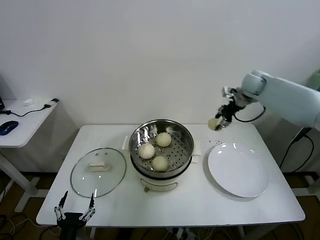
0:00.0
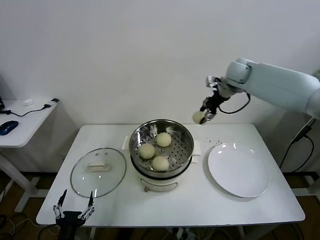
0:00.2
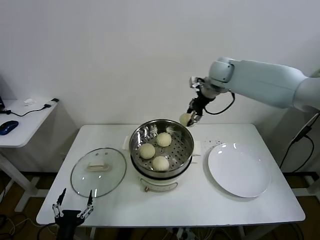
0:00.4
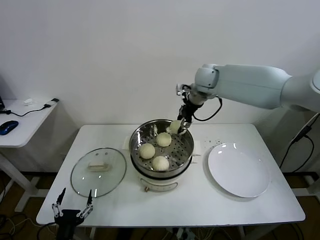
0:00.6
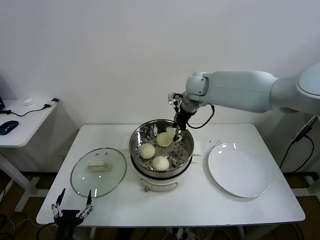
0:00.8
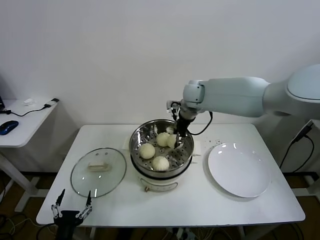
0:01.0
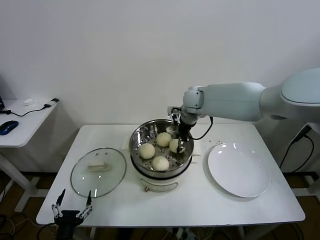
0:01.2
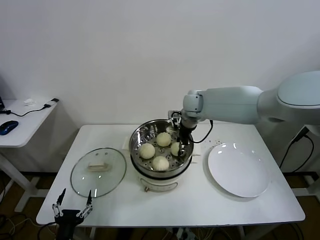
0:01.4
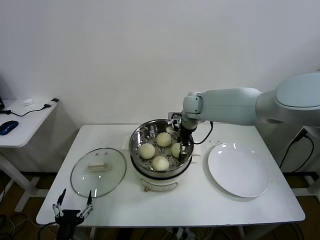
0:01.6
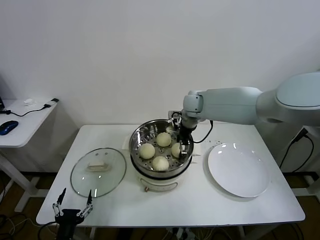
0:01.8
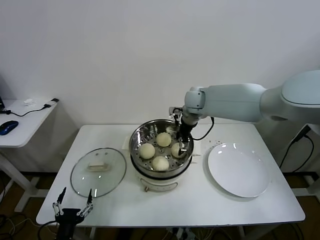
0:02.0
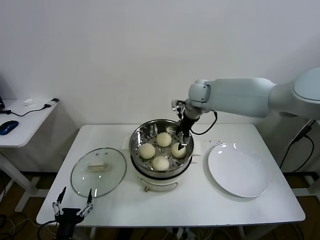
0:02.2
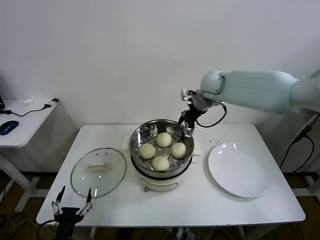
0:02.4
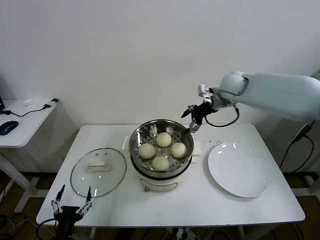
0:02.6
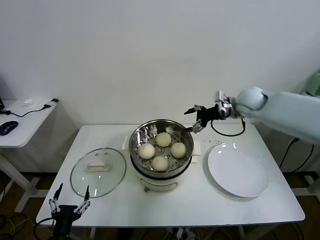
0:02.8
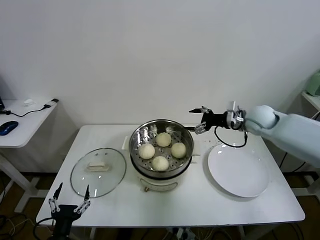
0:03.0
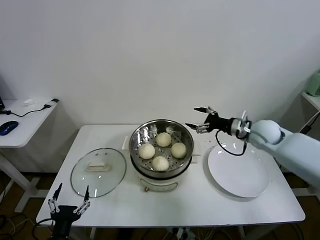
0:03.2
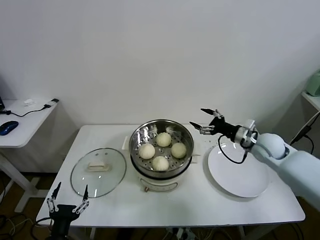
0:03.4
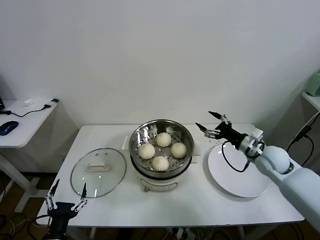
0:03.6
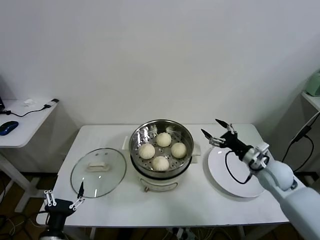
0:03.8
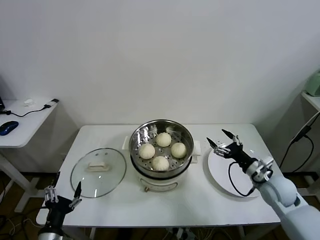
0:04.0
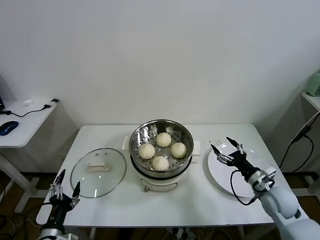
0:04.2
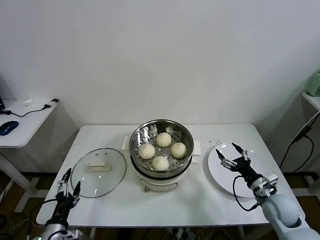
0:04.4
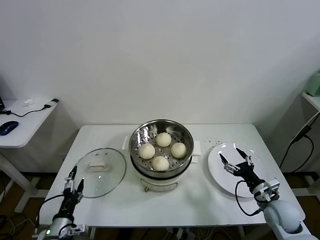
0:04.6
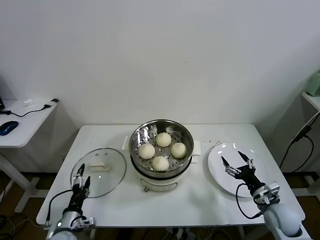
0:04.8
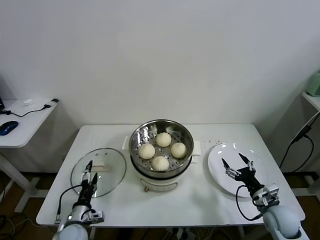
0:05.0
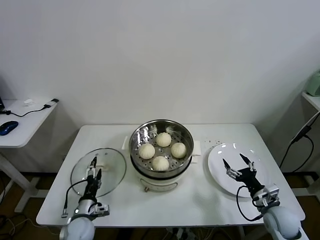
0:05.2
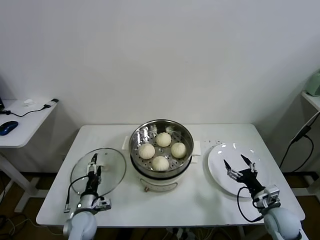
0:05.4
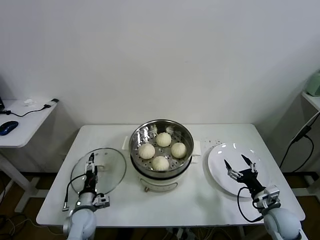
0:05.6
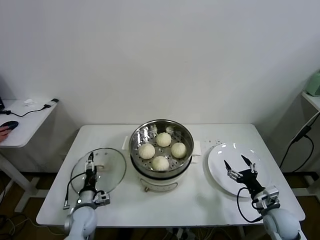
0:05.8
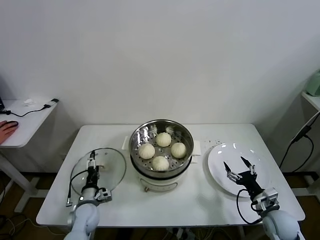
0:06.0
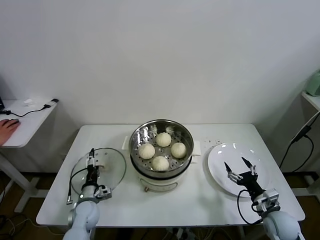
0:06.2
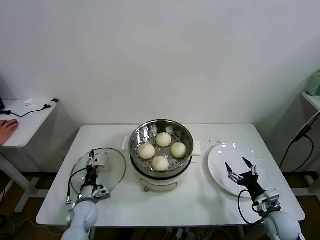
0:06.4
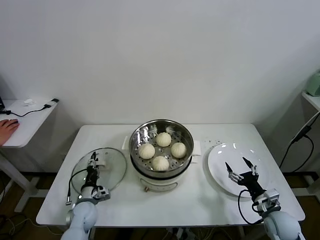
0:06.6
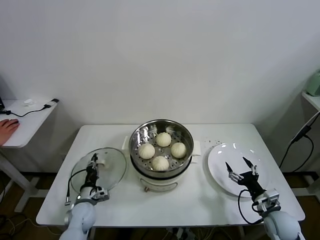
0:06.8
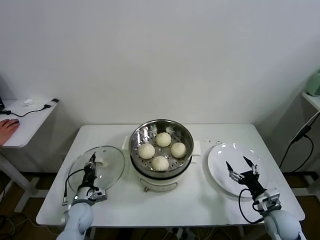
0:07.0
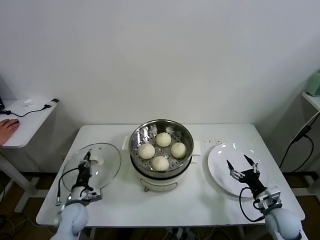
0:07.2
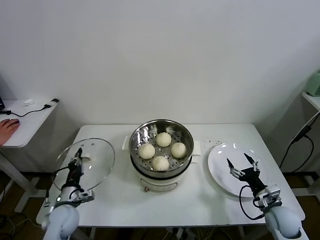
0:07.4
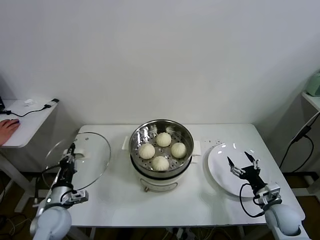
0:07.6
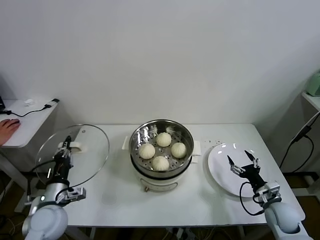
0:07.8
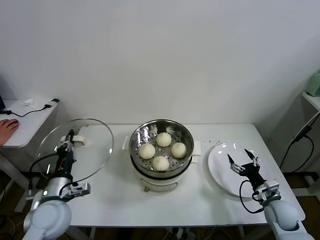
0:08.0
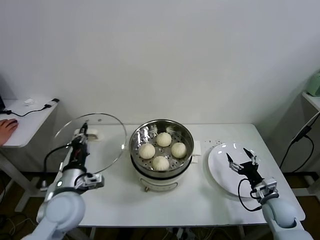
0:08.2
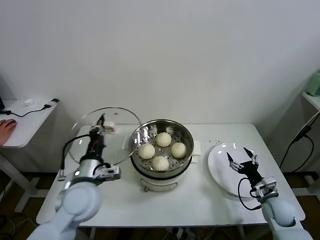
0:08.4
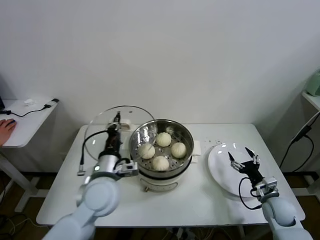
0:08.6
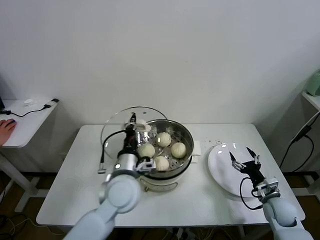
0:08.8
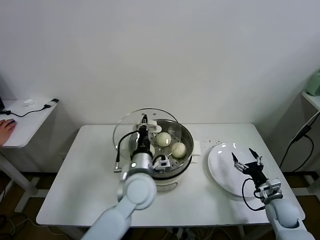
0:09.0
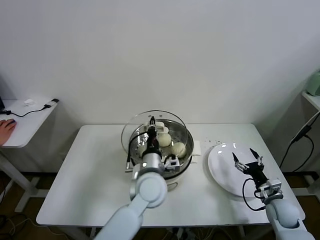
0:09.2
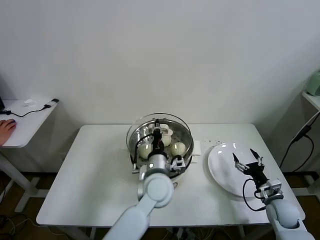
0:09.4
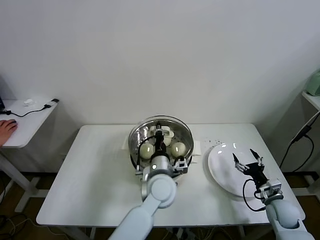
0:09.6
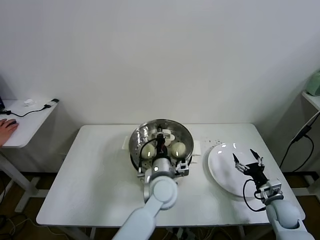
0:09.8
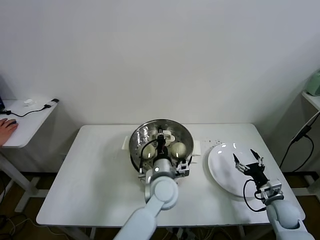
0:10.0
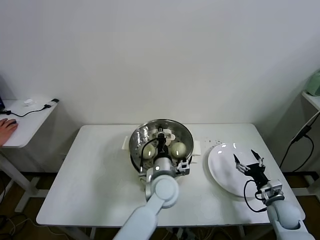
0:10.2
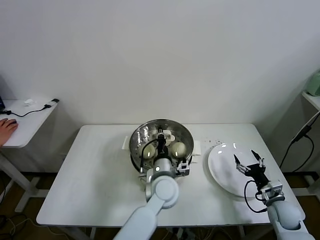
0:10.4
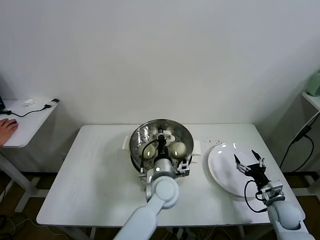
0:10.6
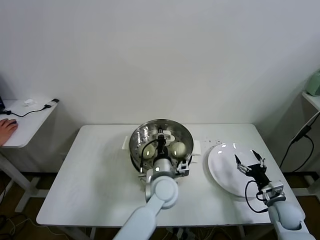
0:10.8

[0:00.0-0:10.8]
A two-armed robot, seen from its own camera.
Task of the whole recording: take steamed baozi put them in steamer.
Step, 0:00.0 to 0:02.0: Place the baozi on the steamer with right gripper.
Step, 0:02.2 to 0:06.8: Grasp the pot lid with left gripper.
0:00.0 to 0:01.6: The right gripper shifts about 20 cm to the left, and opens.
0:01.6 to 0:03.0: The right gripper moves to the right, some 20 cm, and opens.
0:03.0 to 0:04.6: The right gripper moves backward and downward, roughly 30 cm; the left gripper heads forward, covering roughly 5 cm.
0:04.6 to 0:06.2: The left gripper goes some 15 cm forward and downward.
0:06.2 to 0:07.8: The left gripper moves upward and backward, some 15 cm, and closes its fingers.
0:07.8 to 0:09.2: The left gripper shifts approximately 30 cm to the right.
0:09.2 to 0:10.8: The left gripper is displaced downward by about 5 cm.

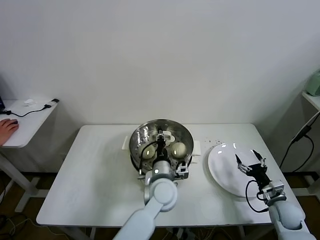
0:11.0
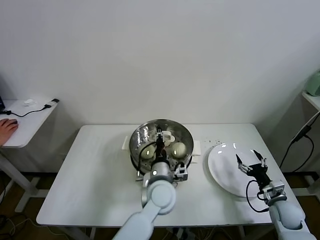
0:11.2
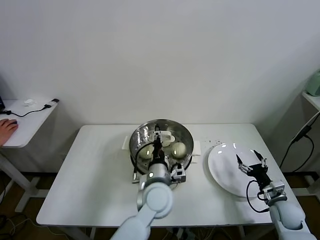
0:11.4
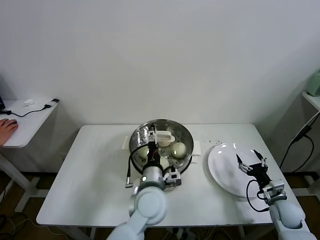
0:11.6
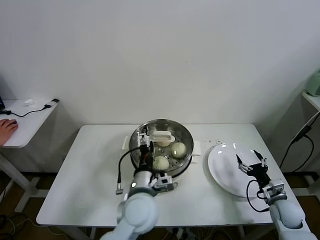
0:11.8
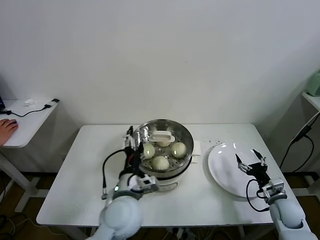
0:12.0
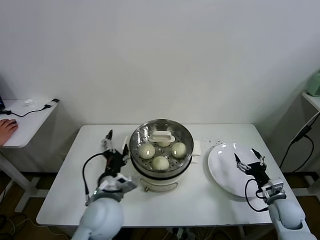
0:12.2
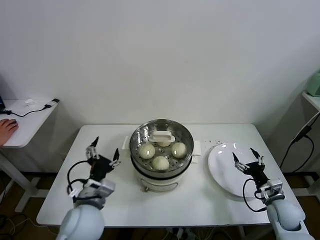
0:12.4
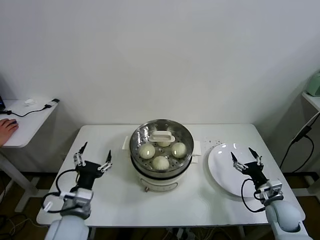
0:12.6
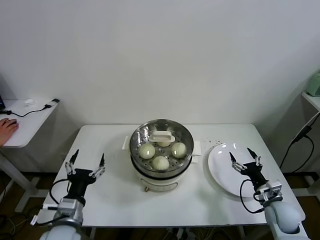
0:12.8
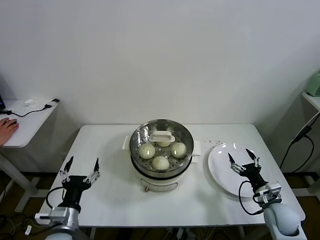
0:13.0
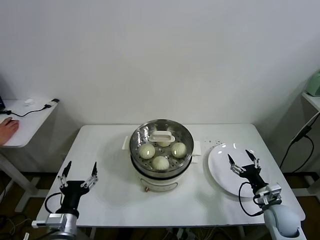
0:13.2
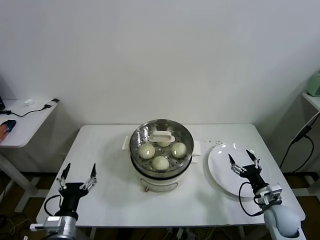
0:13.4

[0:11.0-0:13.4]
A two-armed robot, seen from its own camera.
Task of the whole recording: take steamed baozi put them in steamer.
0:11.0 to 0:12.2: The left gripper moves to the left, backward and upward, some 15 cm, and opens up.
0:12.2 to 0:13.4: The left gripper is displaced to the left, backward and downward by about 20 cm.

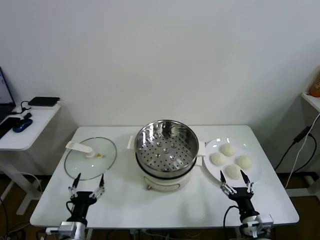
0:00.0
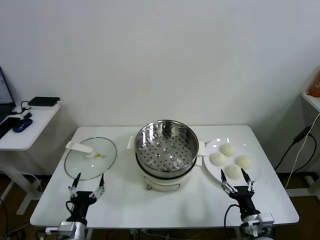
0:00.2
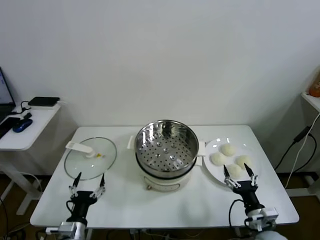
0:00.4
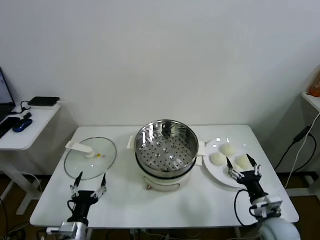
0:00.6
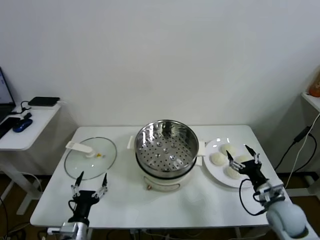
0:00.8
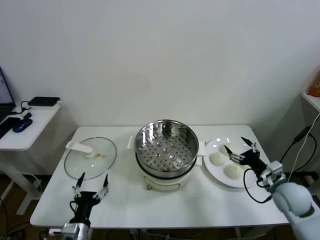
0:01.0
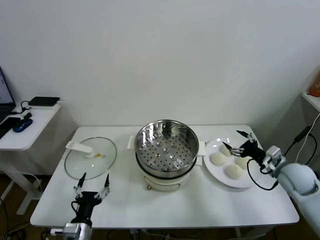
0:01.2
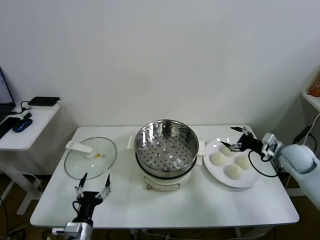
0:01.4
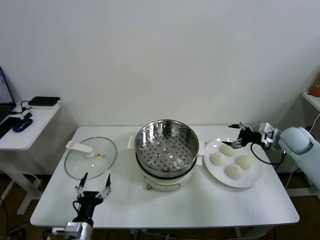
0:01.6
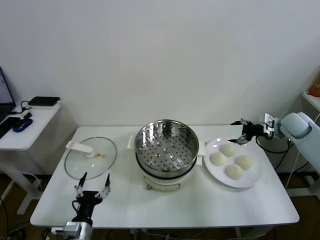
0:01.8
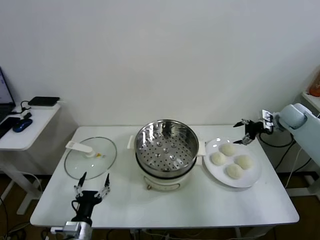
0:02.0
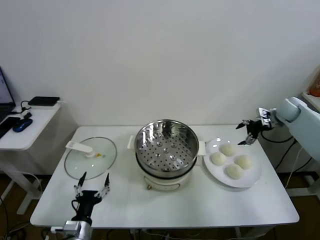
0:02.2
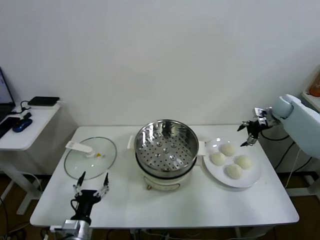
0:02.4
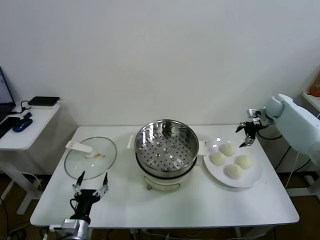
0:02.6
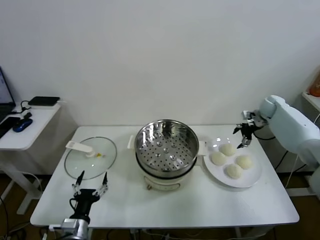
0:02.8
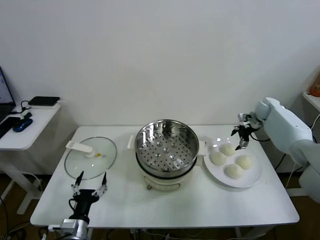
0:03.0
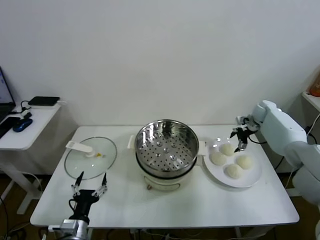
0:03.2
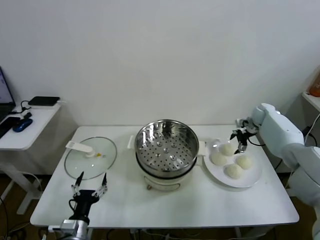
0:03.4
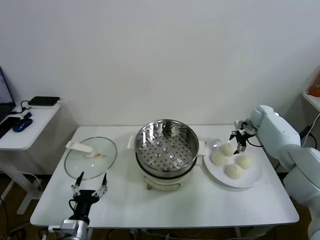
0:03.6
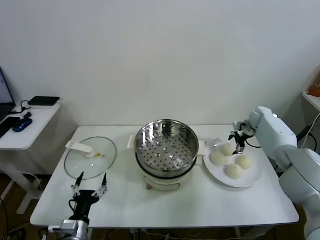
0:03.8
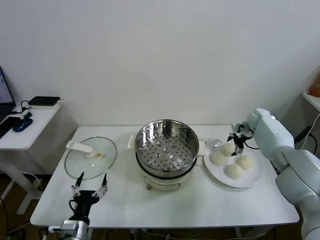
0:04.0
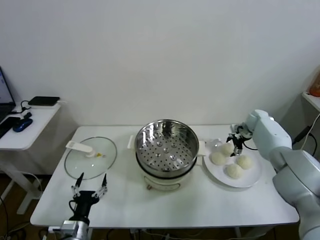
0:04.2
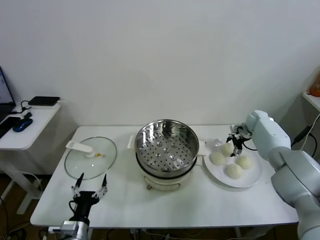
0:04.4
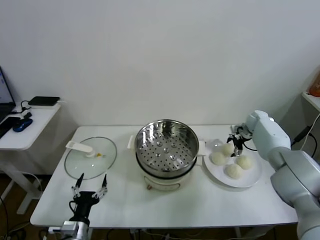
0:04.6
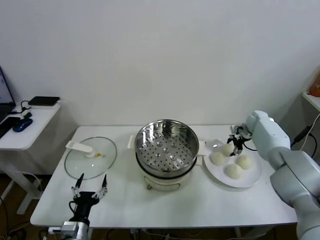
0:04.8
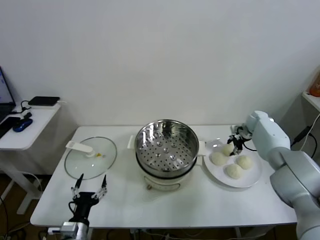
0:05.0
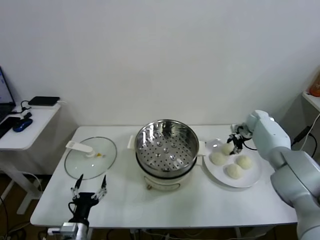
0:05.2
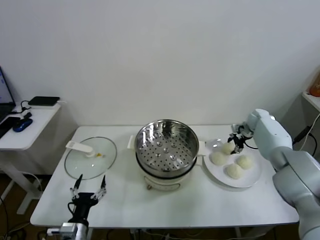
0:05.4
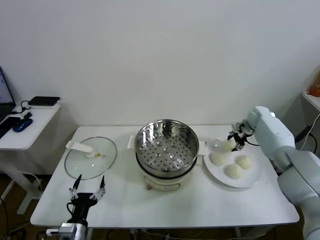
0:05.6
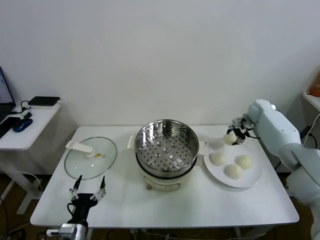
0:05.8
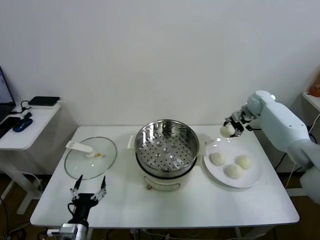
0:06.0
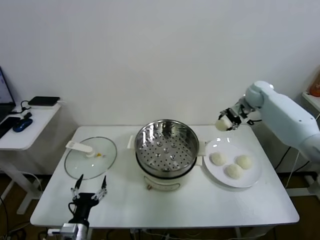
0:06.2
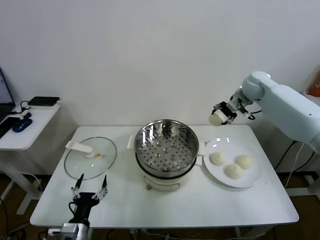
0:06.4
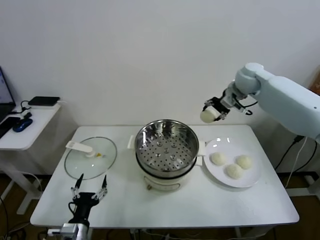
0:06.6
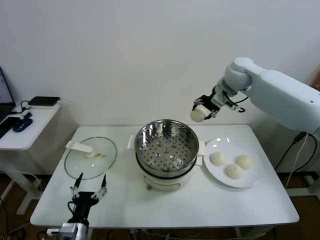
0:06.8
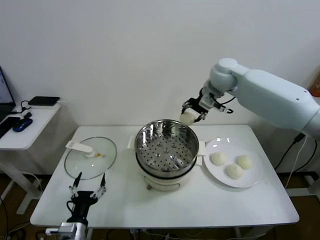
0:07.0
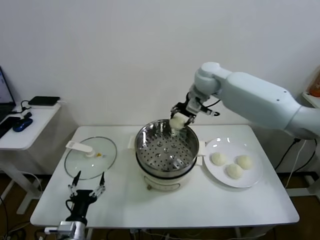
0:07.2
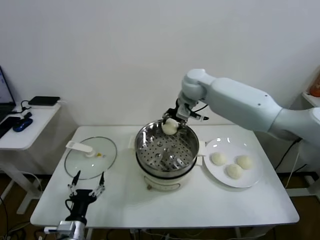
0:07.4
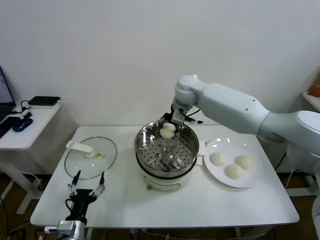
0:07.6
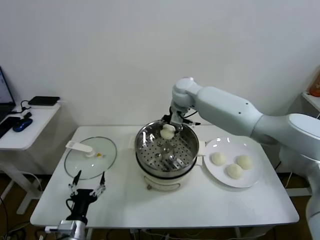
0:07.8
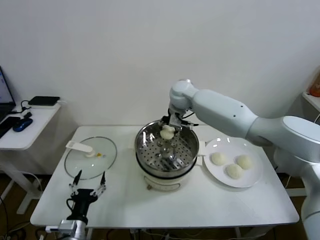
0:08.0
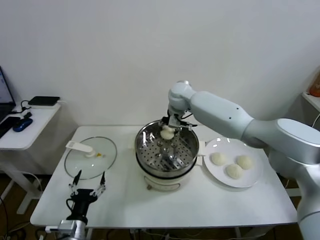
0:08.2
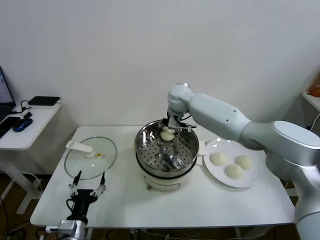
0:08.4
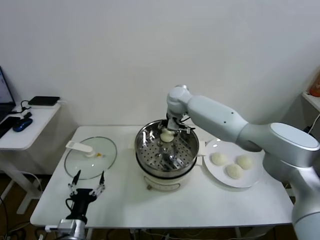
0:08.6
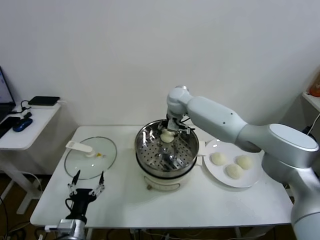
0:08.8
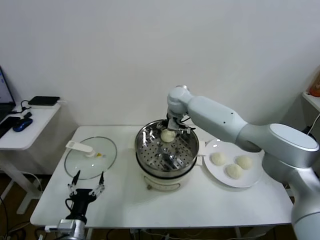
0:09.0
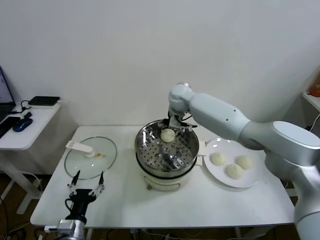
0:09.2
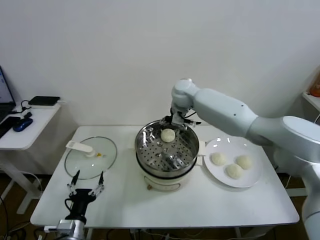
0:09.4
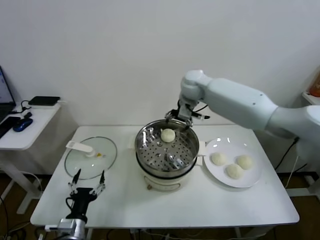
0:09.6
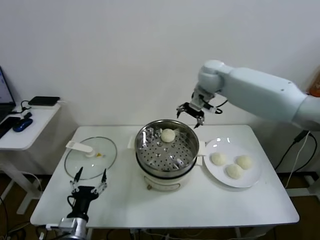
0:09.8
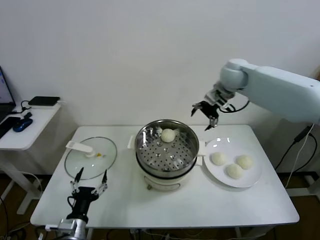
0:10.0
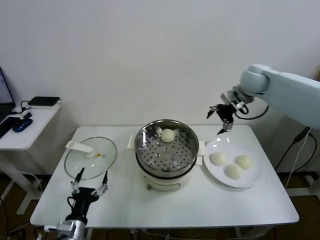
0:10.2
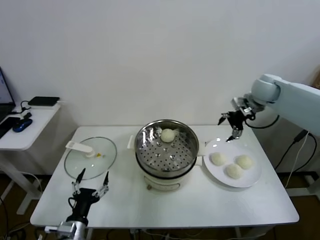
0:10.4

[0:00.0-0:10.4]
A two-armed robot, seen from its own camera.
Task of the whole recording: take steamed baozi put them in steamer.
Step, 0:00.0 to 0:05.2: Grasp the baozi in the plate with right gripper.
Step, 0:05.4 to 0:09.0: Place the baozi on the steamer with right gripper.
0:01.4 to 0:03.0: The right gripper goes some 20 cm forward.
0:03.0 to 0:04.4: The right gripper goes approximately 5 cm downward.
0:04.4 to 0:06.0: The right gripper moves upward, approximately 15 cm, and closes.
0:06.0 to 0:07.4: The right gripper goes about 30 cm to the left.
0:07.4 to 0:09.0: The right gripper travels downward by about 5 cm, and opens up.
0:09.0 to 0:10.4: The right gripper is displaced to the right by some 30 cm.
